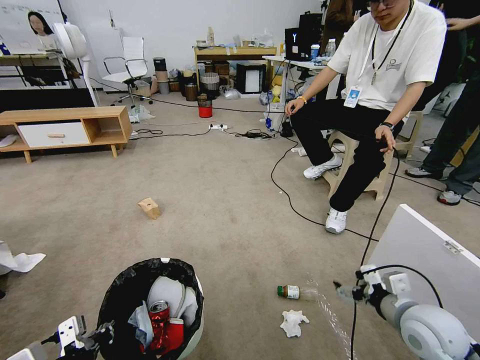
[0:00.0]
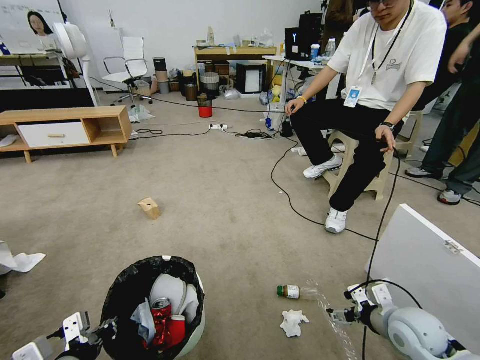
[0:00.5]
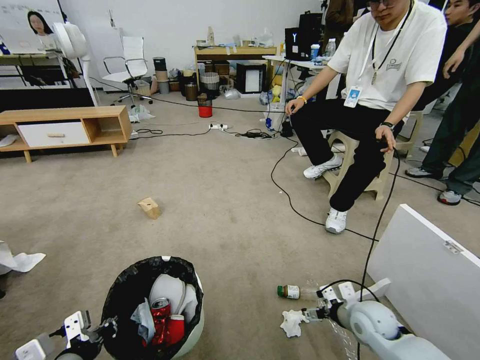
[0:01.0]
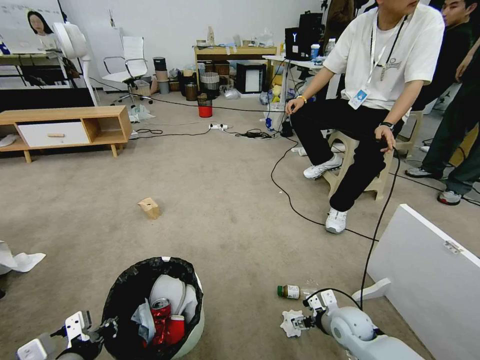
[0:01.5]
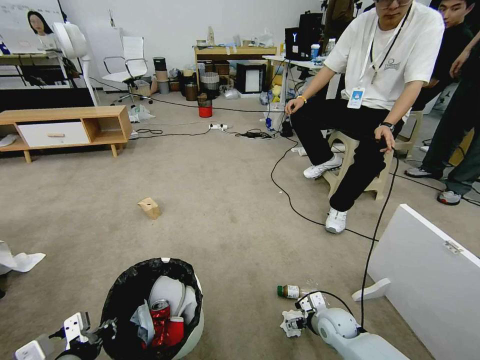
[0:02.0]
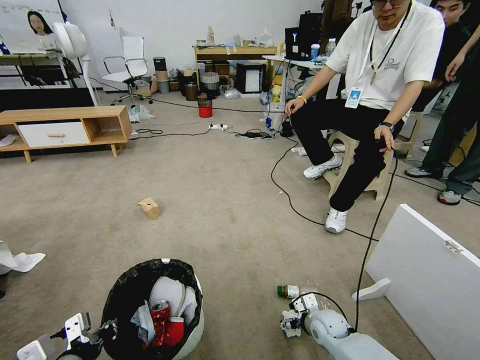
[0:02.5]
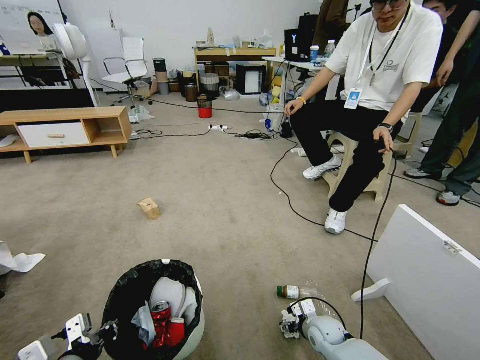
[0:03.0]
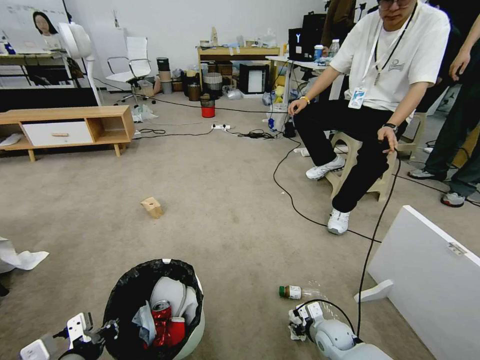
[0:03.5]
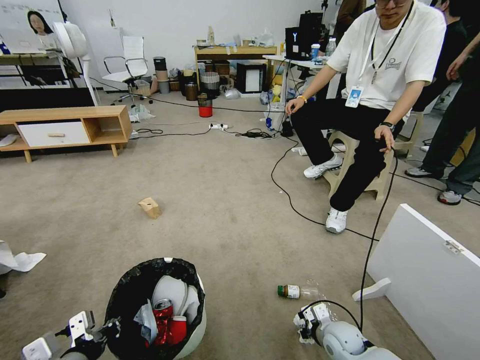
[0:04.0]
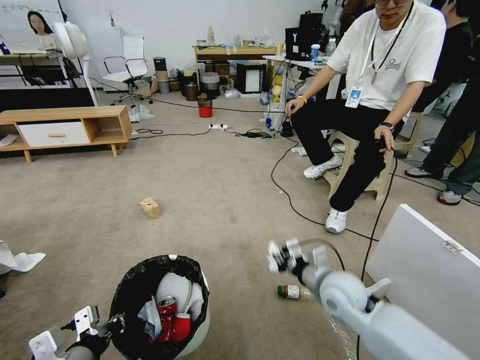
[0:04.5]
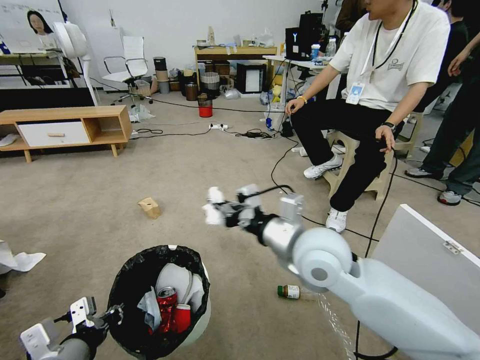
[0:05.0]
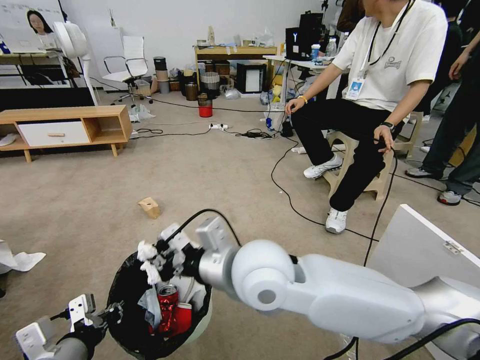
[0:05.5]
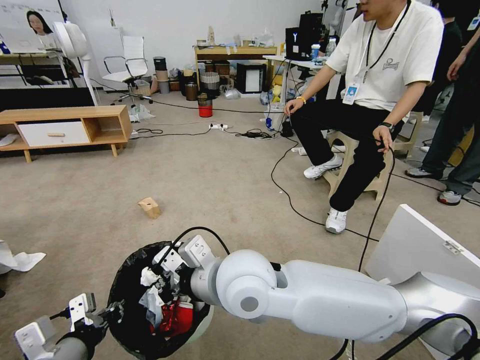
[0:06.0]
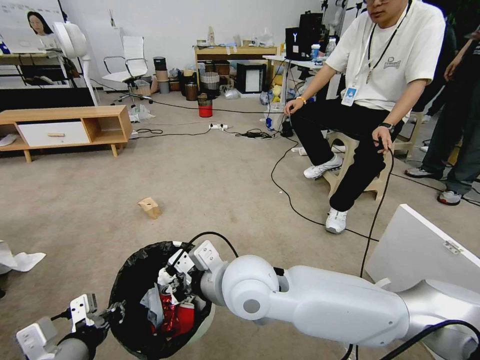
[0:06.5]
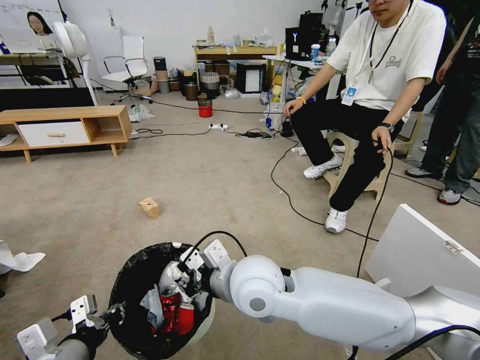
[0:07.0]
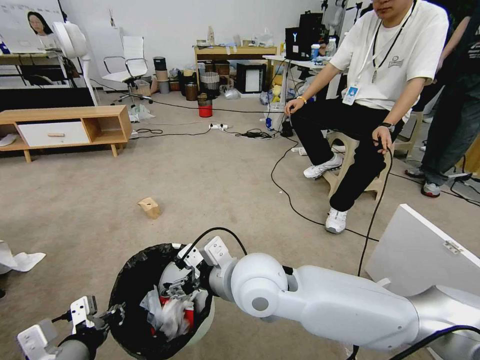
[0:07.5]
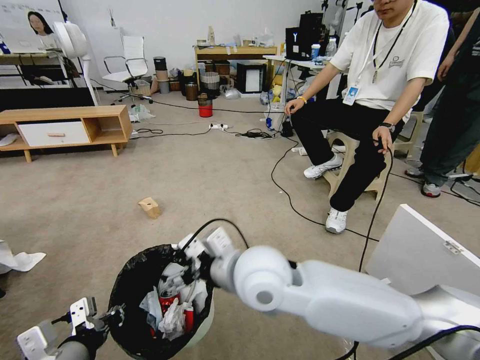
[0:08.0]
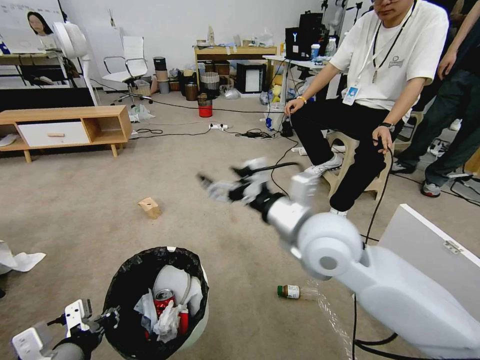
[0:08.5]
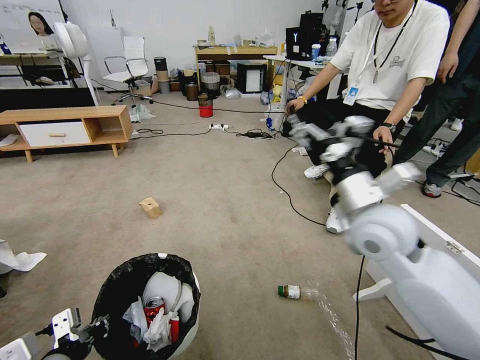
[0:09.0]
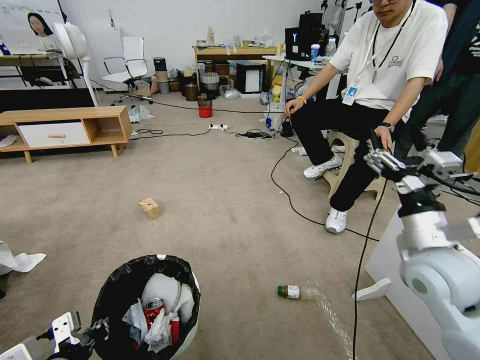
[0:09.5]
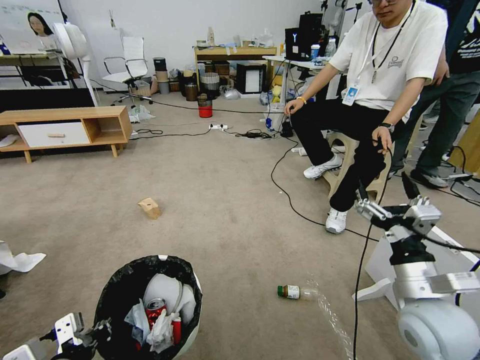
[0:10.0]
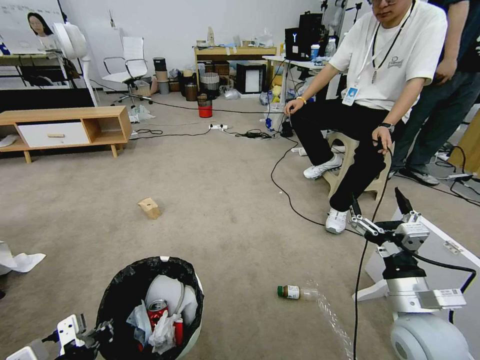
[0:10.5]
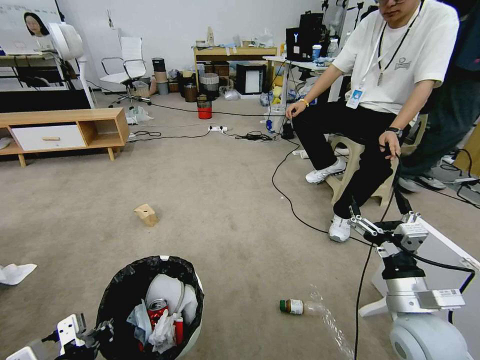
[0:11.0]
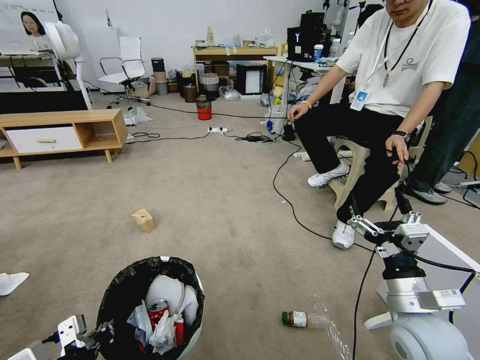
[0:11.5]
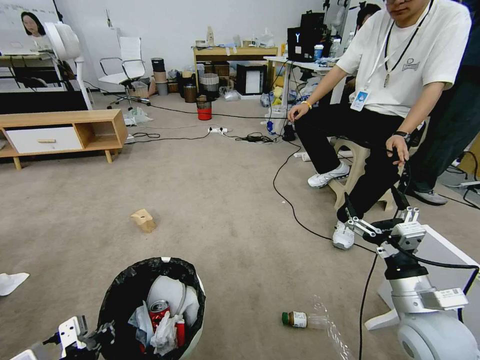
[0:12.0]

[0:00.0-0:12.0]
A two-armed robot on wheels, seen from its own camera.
Task of the whole recording: Pick up the trash bin and place the garbage on the floor into it.
0:00.0 to 0:02.0: The right gripper is displaced downward, to the left and forward by about 25 cm.
0:02.0 to 0:04.0: The right gripper closes.
0:04.0 to 0:06.0: The right gripper is displaced upward and to the left by roughly 50 cm; the left gripper goes about 5 cm upward.
0:06.0 to 0:08.0: The right gripper opens its fingers.
0:08.0 to 0:10.0: The right gripper travels to the right by about 30 cm.

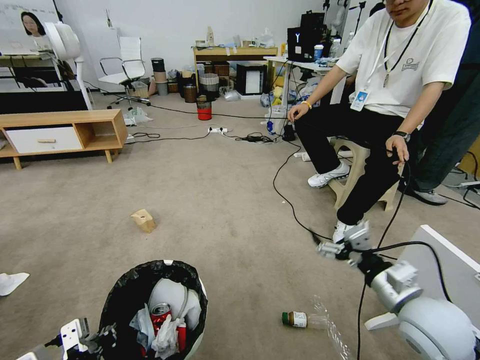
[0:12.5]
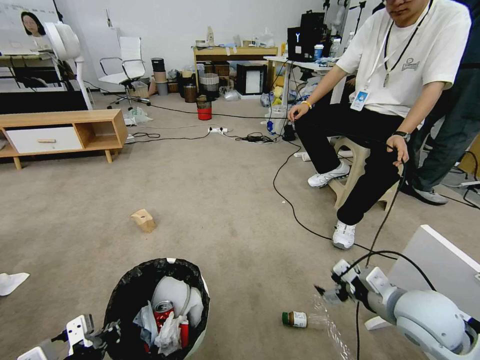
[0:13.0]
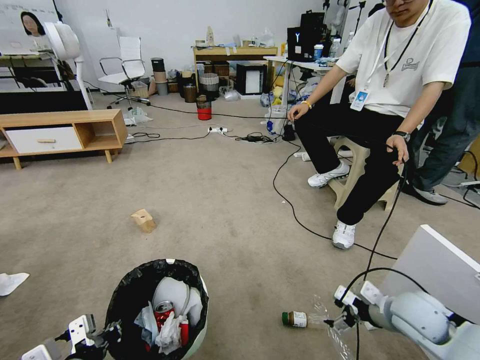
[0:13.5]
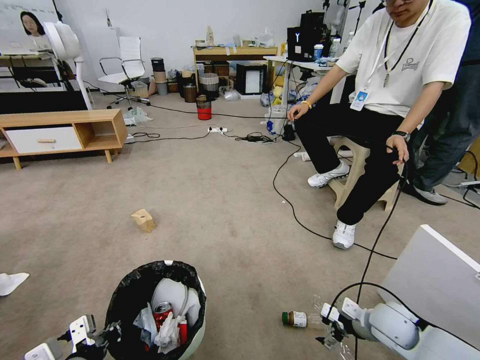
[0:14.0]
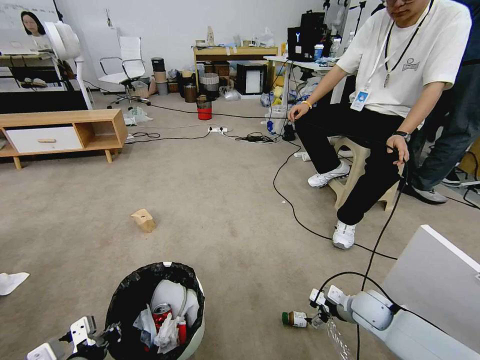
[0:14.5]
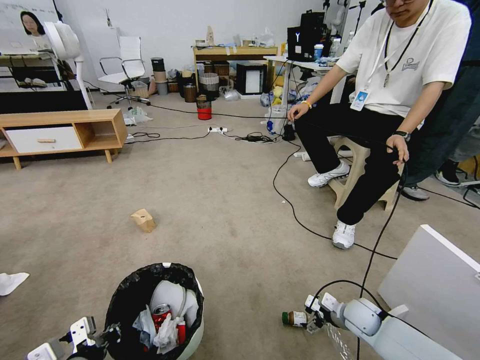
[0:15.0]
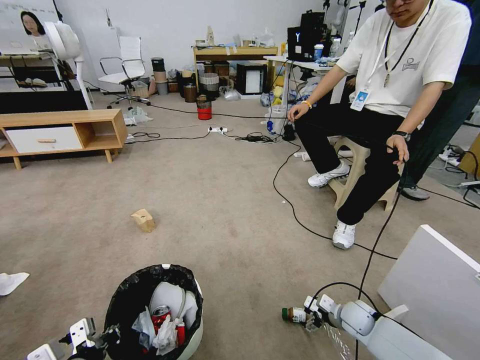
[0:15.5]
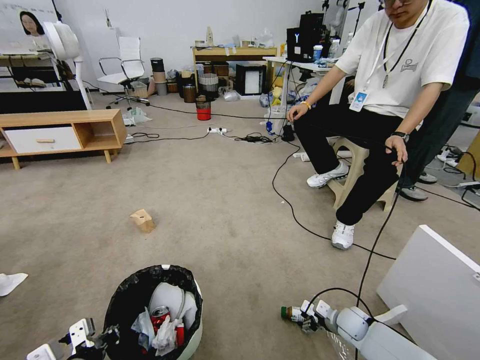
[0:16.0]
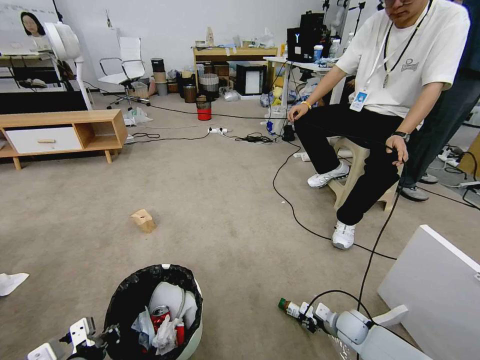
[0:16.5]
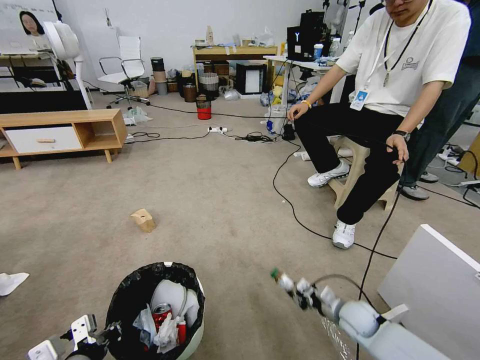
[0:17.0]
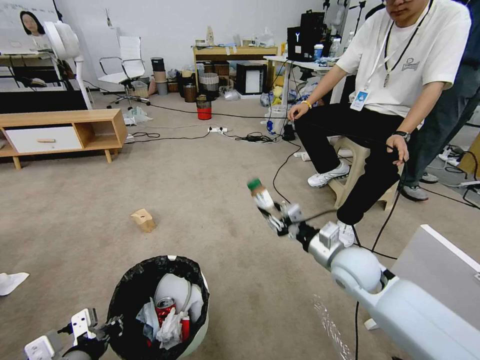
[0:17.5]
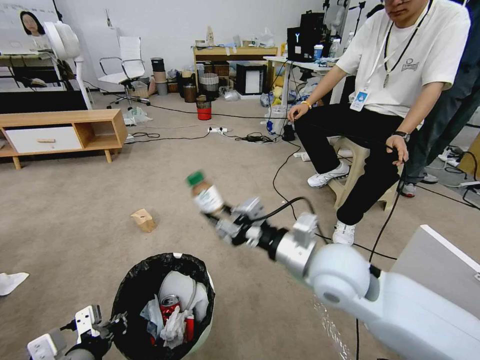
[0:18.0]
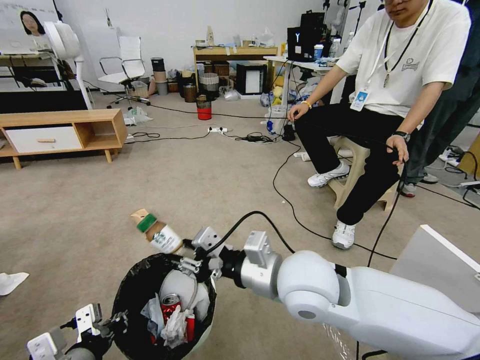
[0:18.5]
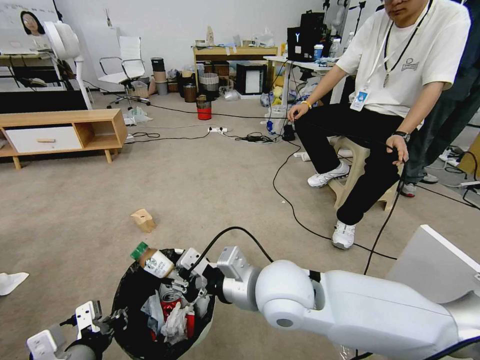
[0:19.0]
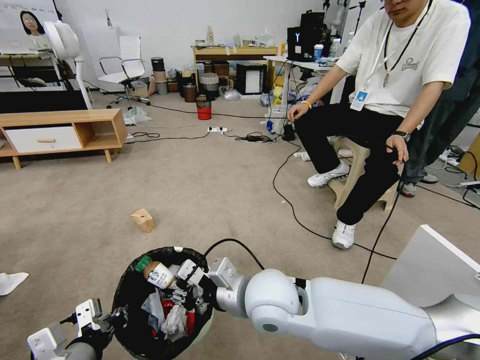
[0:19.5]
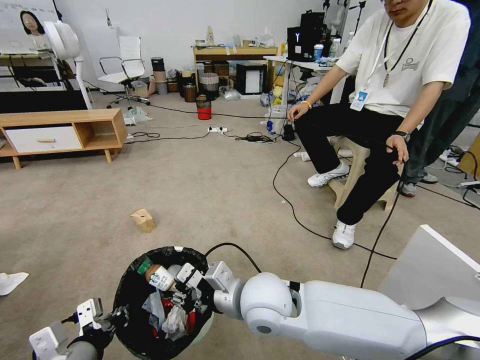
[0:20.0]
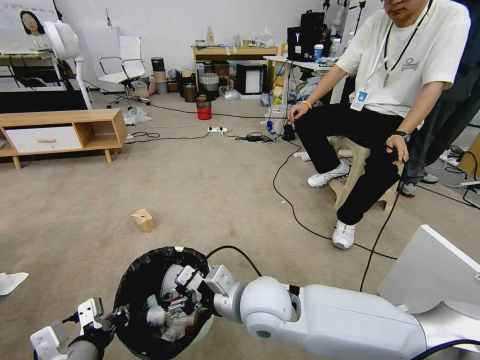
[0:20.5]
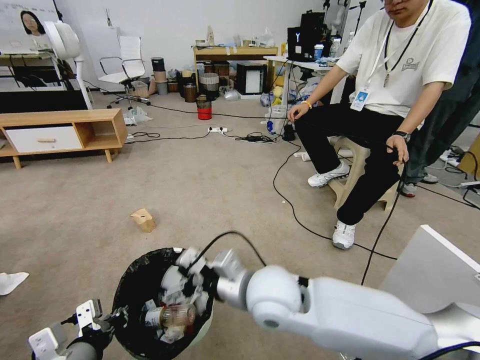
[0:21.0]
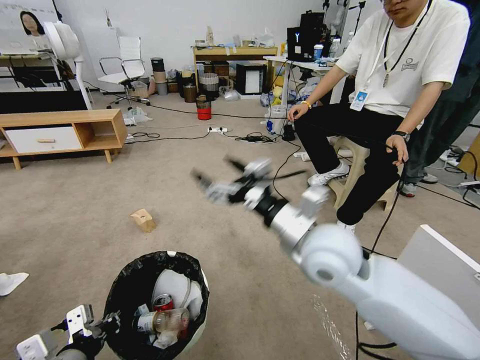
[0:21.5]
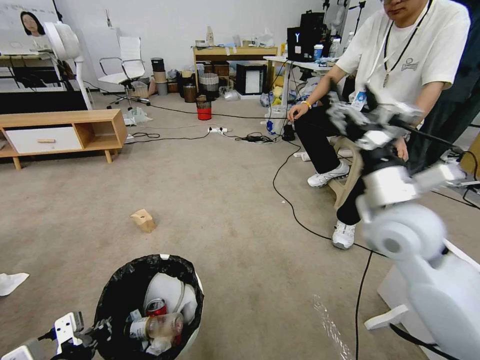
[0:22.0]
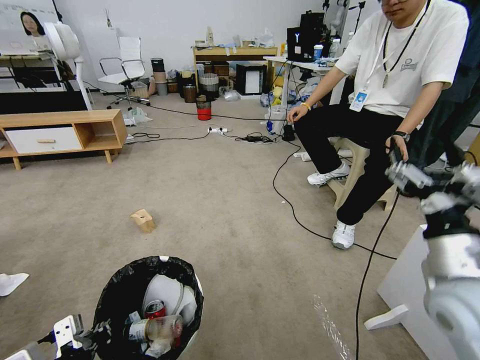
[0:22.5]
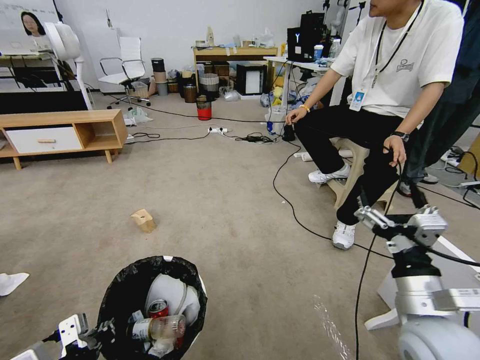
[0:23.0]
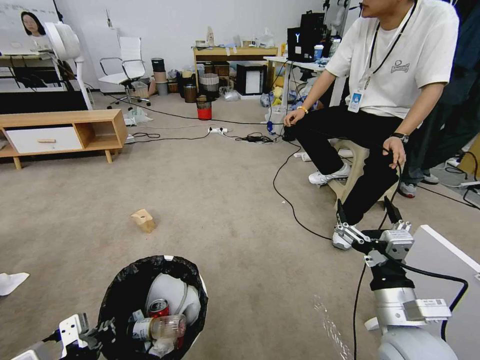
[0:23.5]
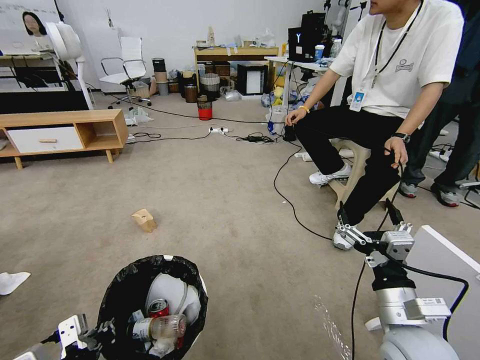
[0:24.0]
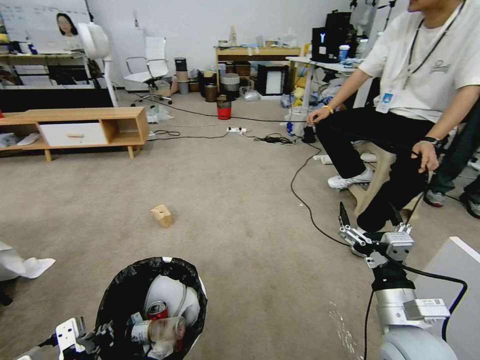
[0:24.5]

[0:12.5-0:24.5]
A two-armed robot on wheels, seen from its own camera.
Task of the whole recording: Pick up the trash bin and place the garbage on the floor into it.
0:12.5 to 0:14.5: The right gripper goes some 20 cm downward and forward.
0:14.5 to 0:16.5: The right gripper heads downward, covering approximately 10 cm, and closes.
0:16.5 to 0:18.5: The right gripper goes some 50 cm upward and to the left; the left gripper shifts by roughly 5 cm.
0:18.5 to 0:20.5: The right gripper travels downward and to the left by roughly 10 cm, and opens up.
0:20.5 to 0:22.5: The right gripper goes about 30 cm to the right.
0:22.5 to 0:24.5: The right gripper moves downward, about 10 cm.

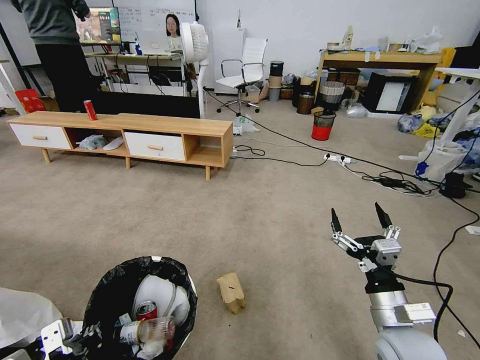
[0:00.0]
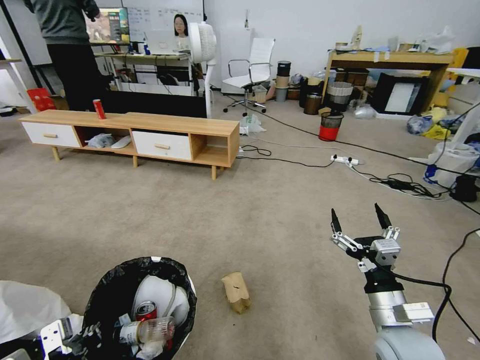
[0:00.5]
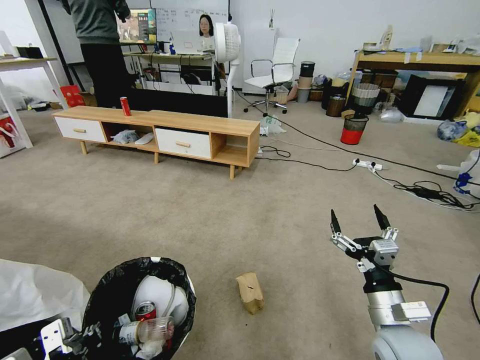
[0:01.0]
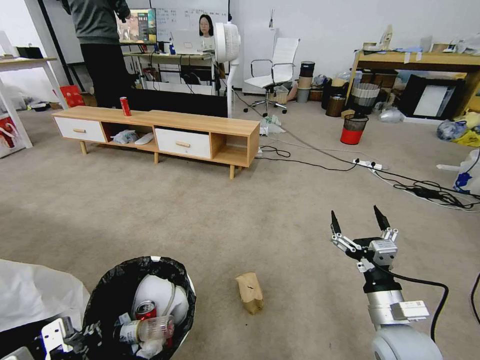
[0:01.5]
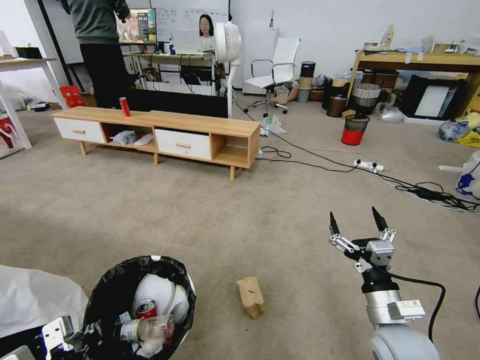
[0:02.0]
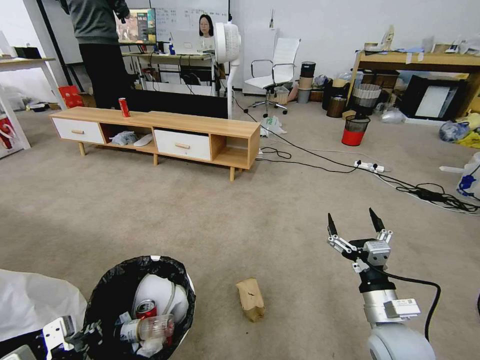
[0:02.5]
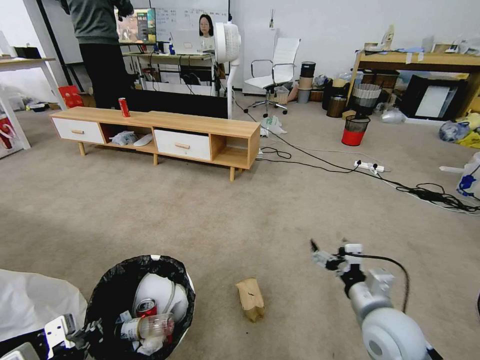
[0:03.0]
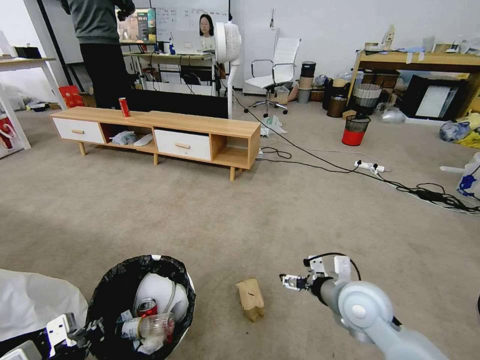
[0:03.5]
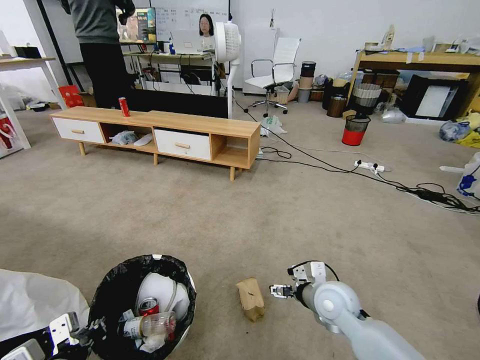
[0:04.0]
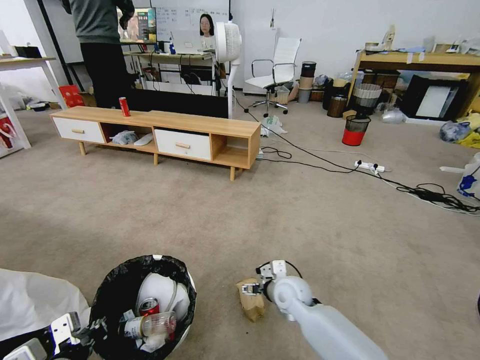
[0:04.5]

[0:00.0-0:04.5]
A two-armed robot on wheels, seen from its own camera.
Task of the whole recording: Pick up the trash bin and place the garbage on the floor into it.
0:02.0 to 0:04.5: The right gripper is displaced forward, to the left and downward by some 25 cm.
